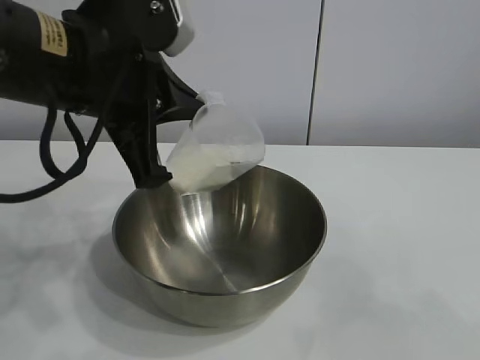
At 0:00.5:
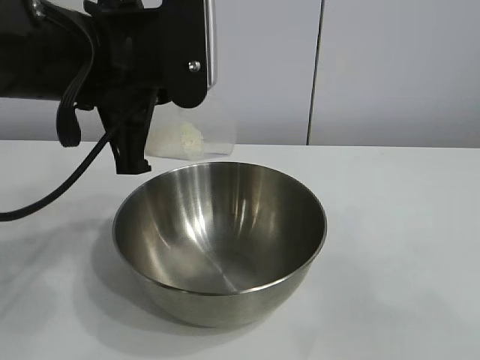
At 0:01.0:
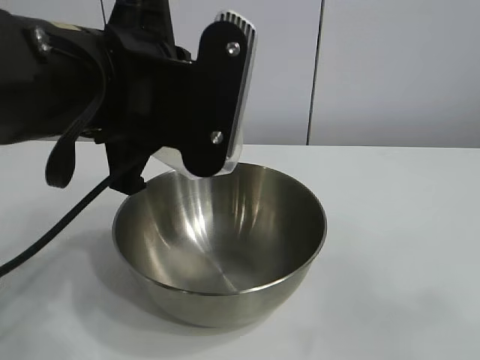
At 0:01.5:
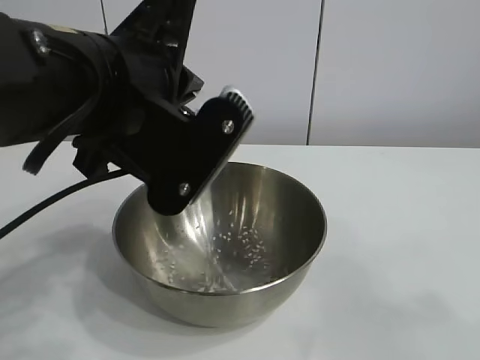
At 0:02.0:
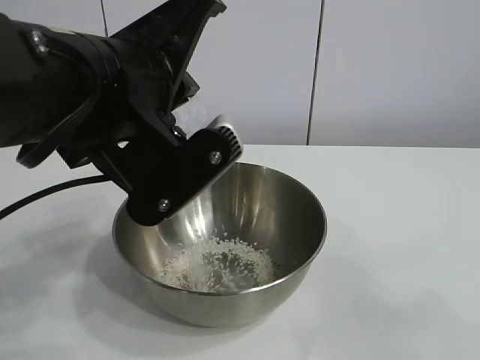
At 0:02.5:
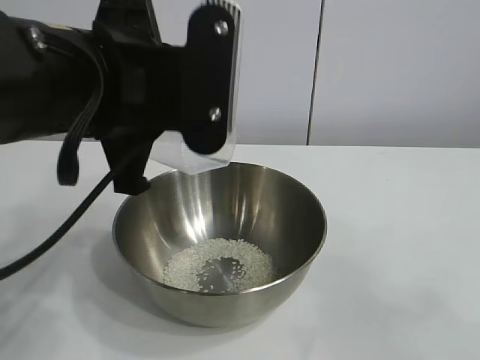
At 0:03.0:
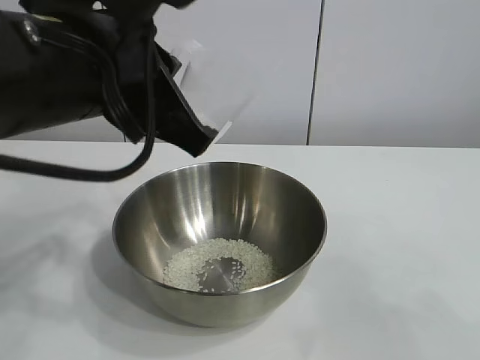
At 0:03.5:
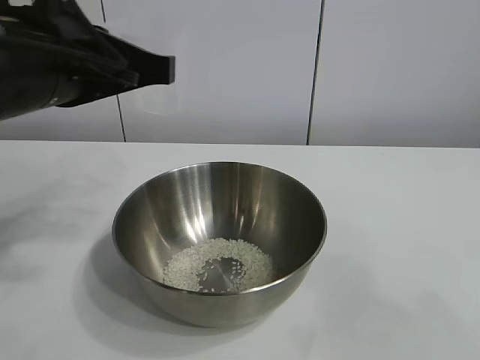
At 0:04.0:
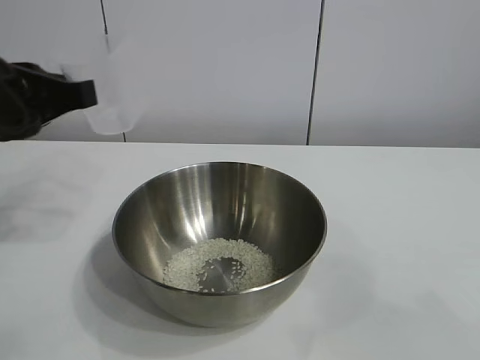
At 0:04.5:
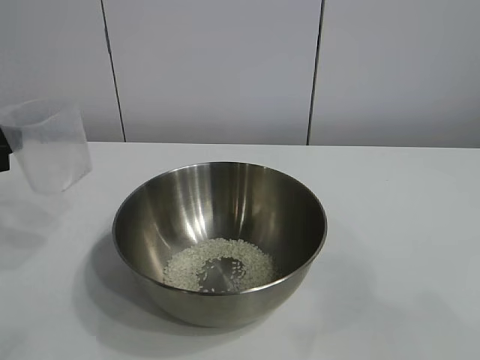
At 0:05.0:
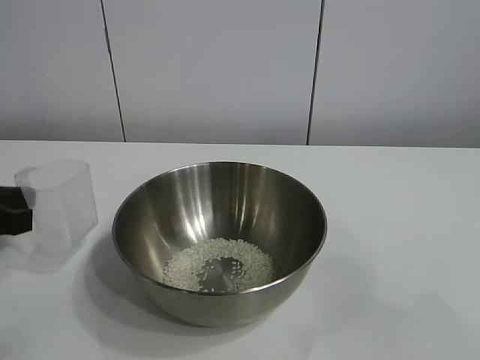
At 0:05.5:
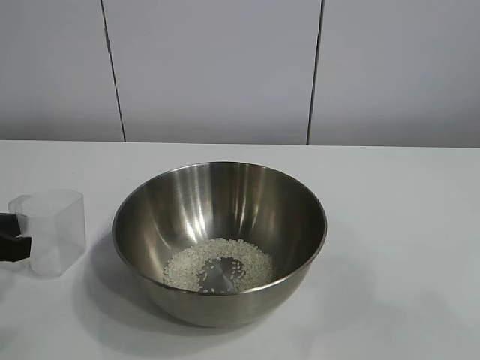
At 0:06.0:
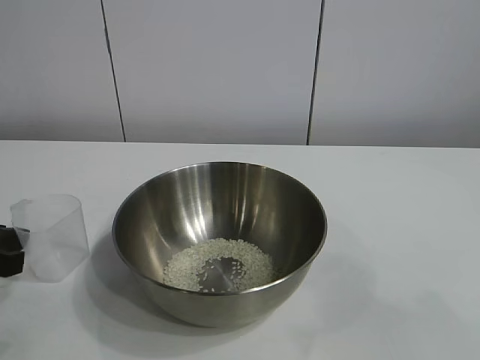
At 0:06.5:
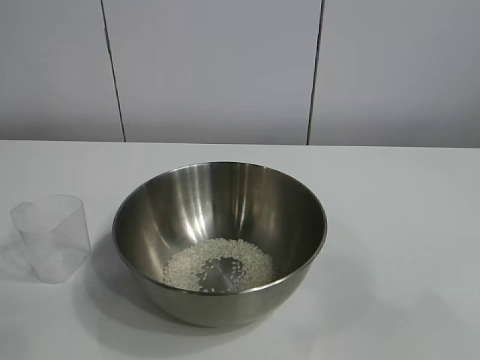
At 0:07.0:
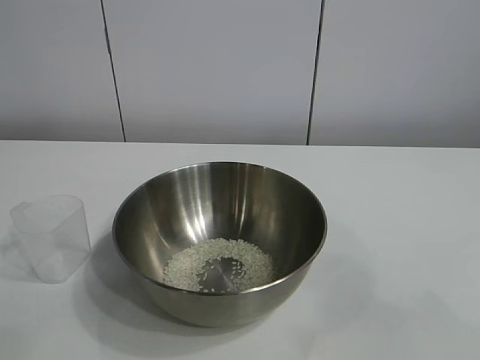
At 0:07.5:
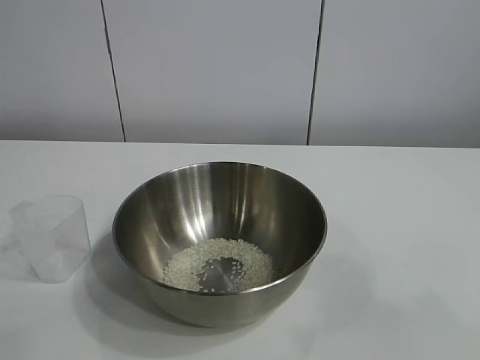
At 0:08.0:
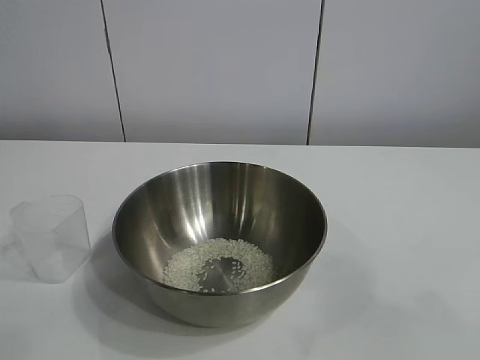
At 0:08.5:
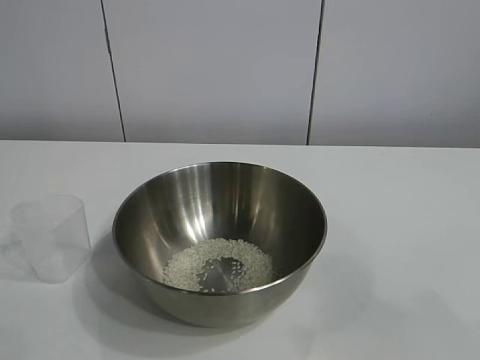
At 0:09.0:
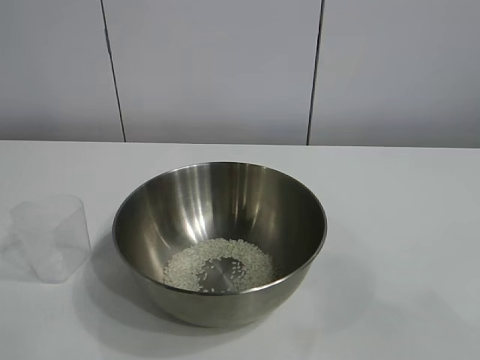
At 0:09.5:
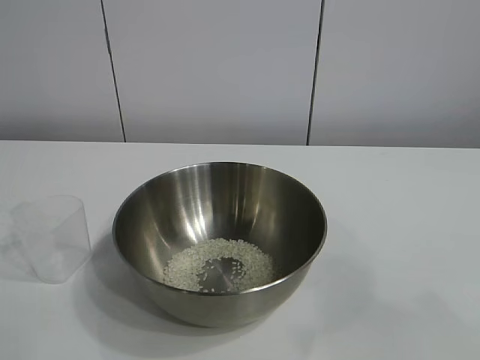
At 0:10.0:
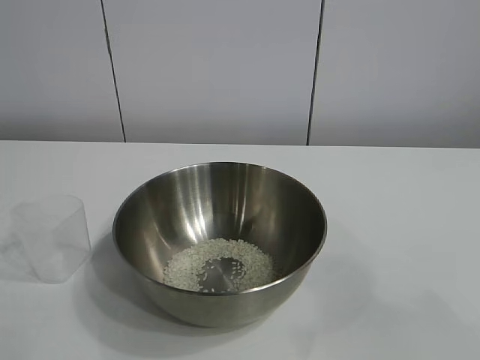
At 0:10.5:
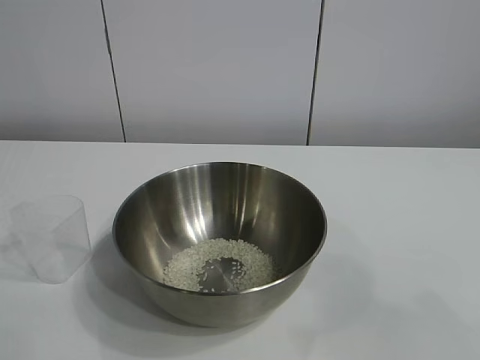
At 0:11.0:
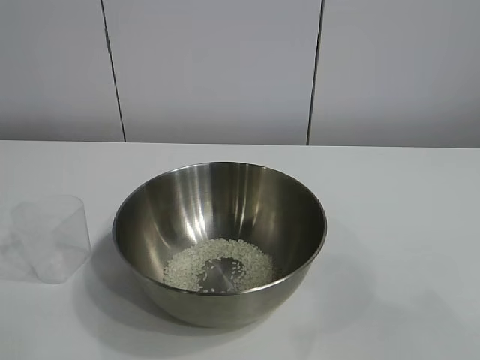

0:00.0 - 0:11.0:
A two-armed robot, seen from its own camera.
Task of the whole recording: the right gripper grasp the rice container and place it in the center of the table, the left gripper grasp the rice scoop and pour the rice into the rice container.
Step, 0:00.0 - 0:02.0: Pour the rice from the cup into the bowl with the left gripper.
Step, 0:02.5 - 0:05.5: Place the cup on the table with the left gripper.
